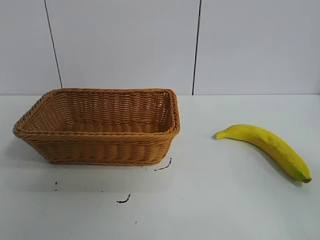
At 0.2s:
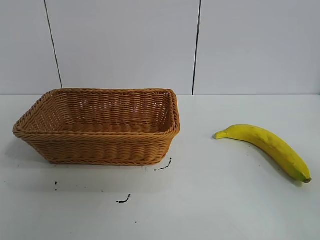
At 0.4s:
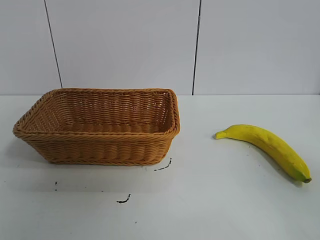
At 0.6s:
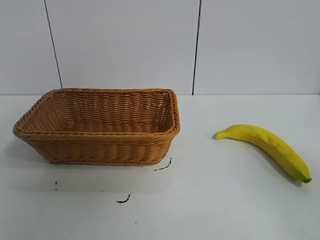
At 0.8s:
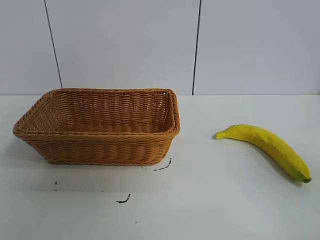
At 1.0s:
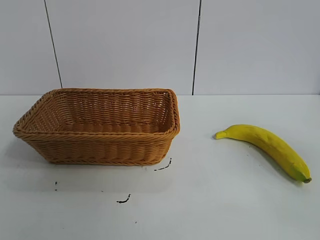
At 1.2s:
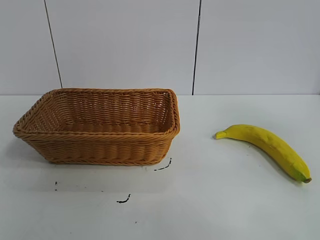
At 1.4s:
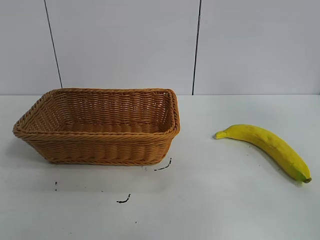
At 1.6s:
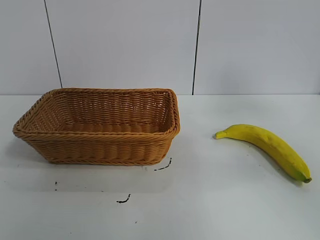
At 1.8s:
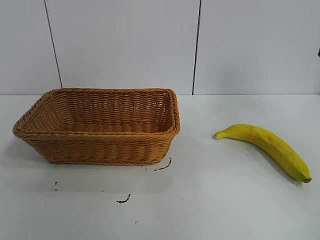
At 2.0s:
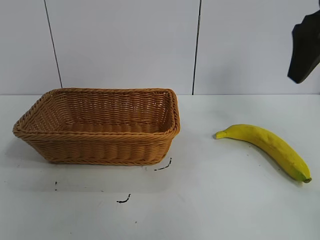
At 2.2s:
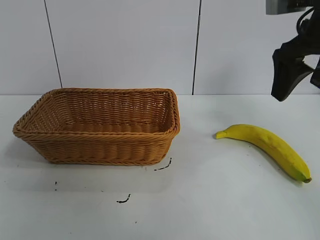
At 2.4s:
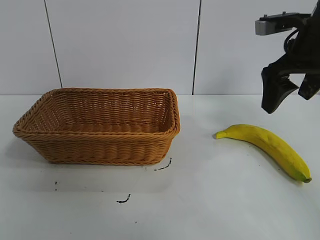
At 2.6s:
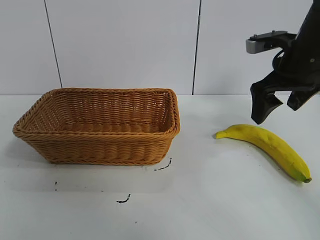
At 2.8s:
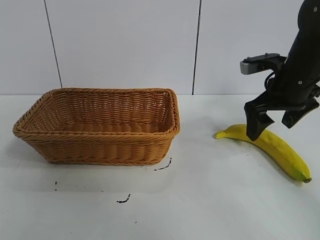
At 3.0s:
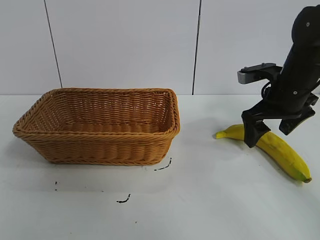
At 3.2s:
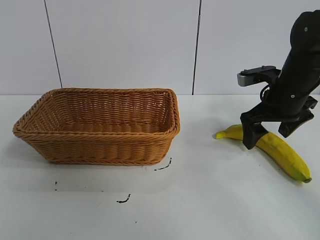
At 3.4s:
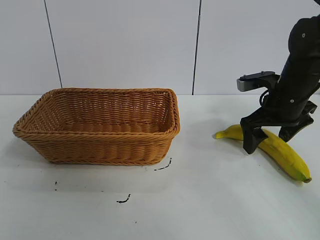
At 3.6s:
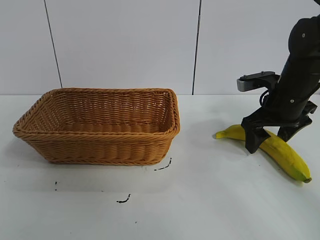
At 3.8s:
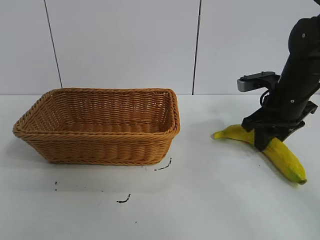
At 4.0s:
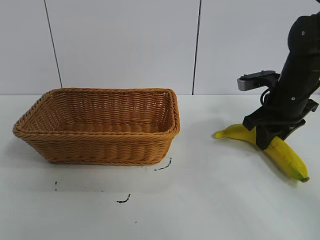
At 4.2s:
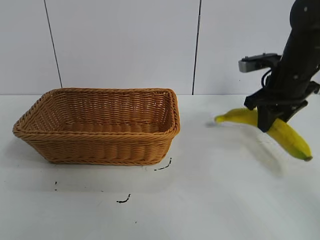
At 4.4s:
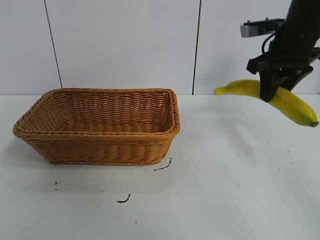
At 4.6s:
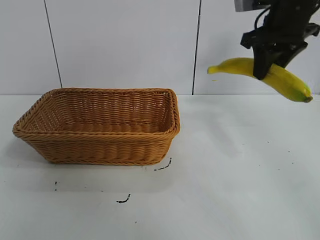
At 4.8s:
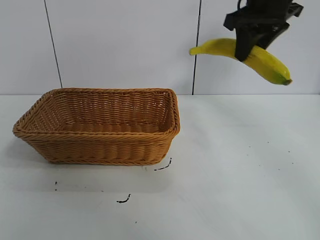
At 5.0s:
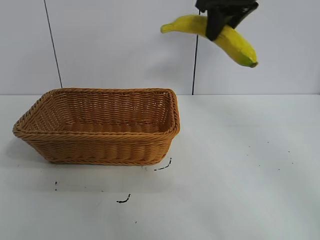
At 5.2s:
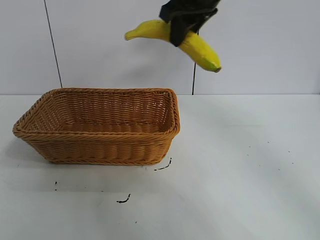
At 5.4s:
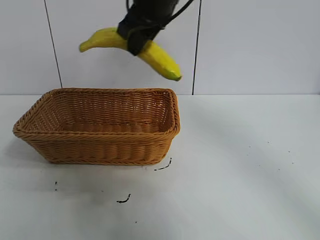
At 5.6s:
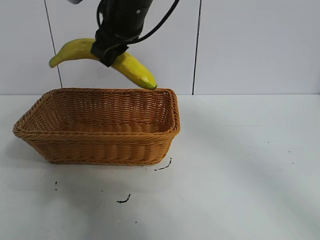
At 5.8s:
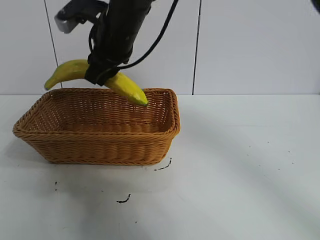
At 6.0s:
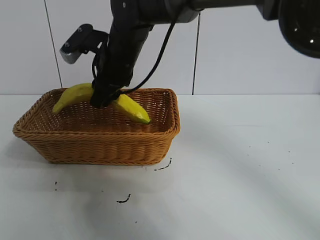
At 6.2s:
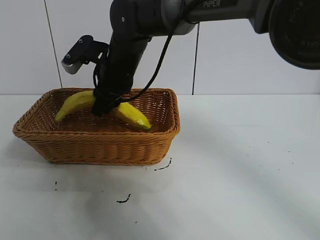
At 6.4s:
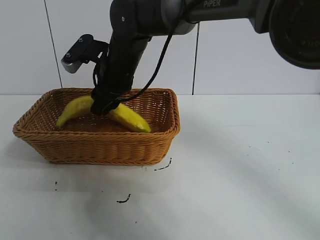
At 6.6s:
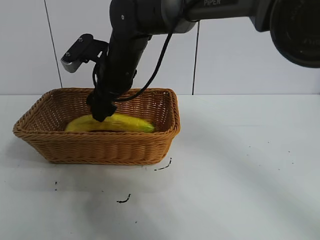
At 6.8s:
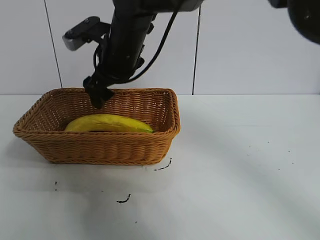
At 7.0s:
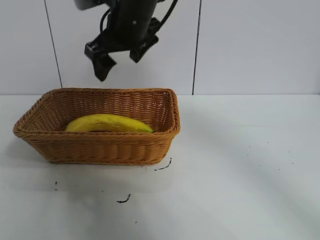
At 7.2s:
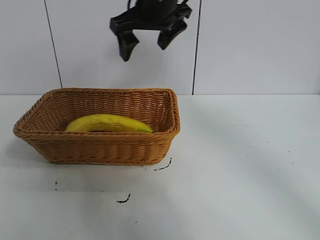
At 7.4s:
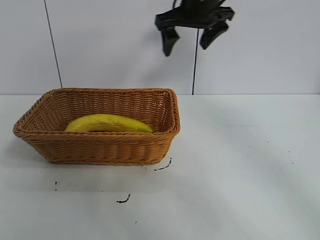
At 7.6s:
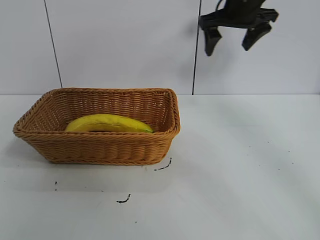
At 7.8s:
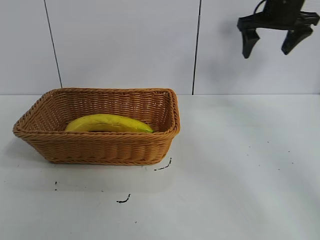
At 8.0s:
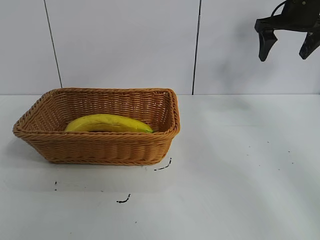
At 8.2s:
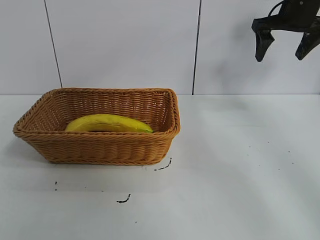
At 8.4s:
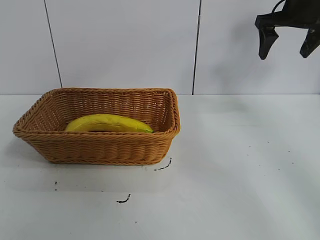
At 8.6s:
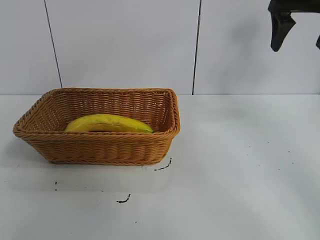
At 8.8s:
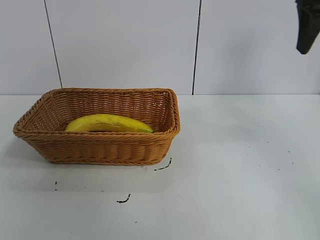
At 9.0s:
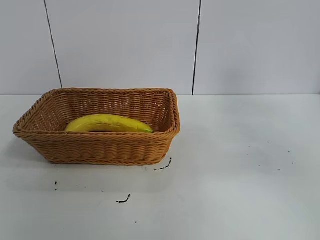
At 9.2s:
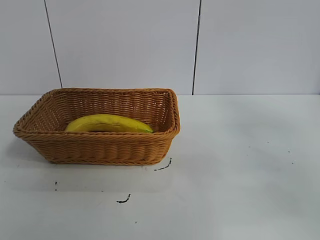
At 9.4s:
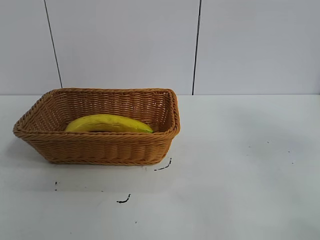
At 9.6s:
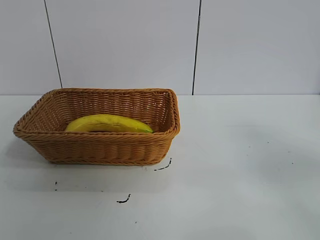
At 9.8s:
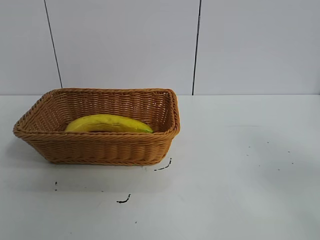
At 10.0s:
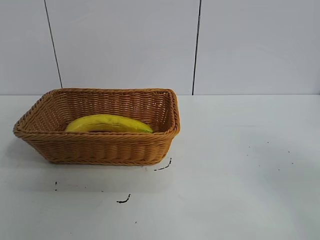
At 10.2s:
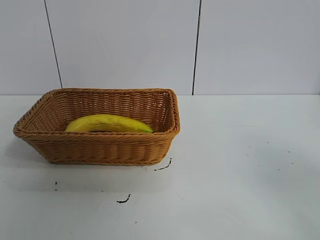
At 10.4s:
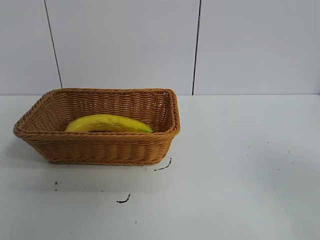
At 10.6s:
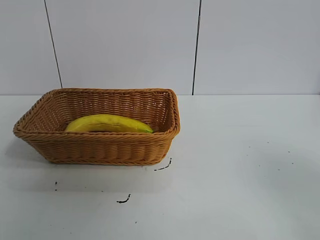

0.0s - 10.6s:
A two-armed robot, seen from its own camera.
Task of the whole recording: pick up the banana and put it into the basket.
Step, 0.8s - 3.8s: Grasp the banana with right gripper.
Step, 4.0s - 6.6s: Place the banana in the basket with right gripper.
